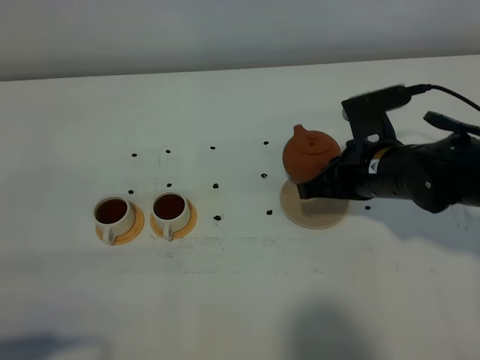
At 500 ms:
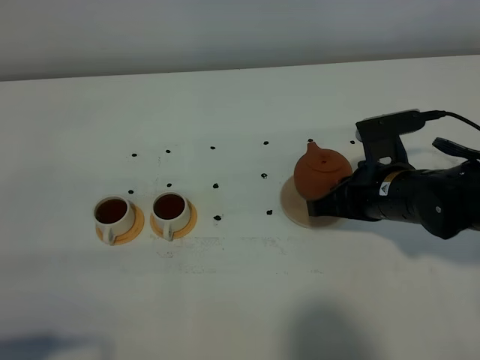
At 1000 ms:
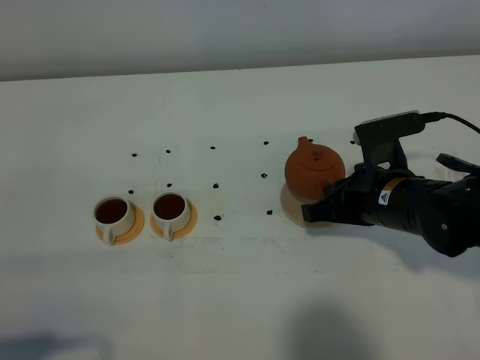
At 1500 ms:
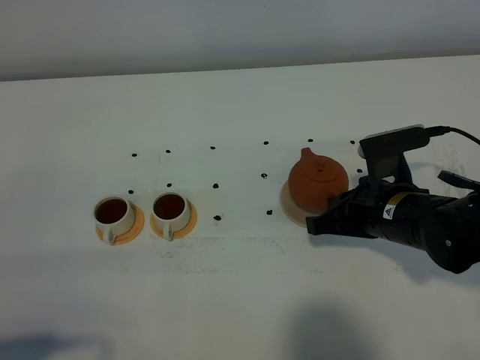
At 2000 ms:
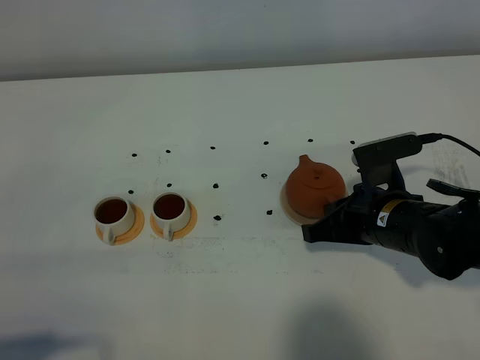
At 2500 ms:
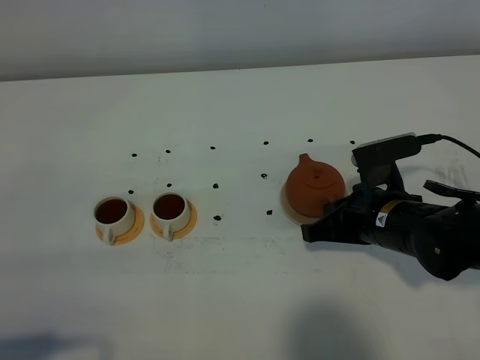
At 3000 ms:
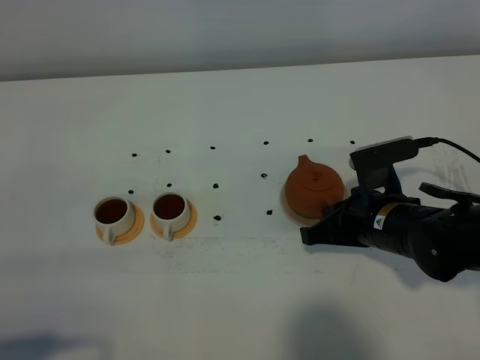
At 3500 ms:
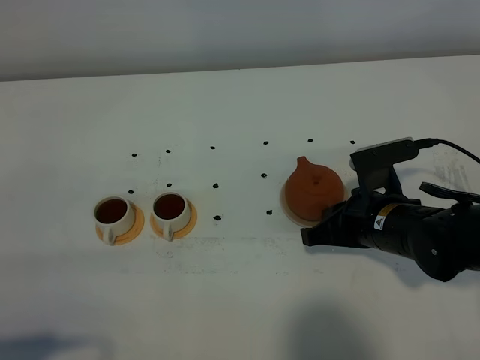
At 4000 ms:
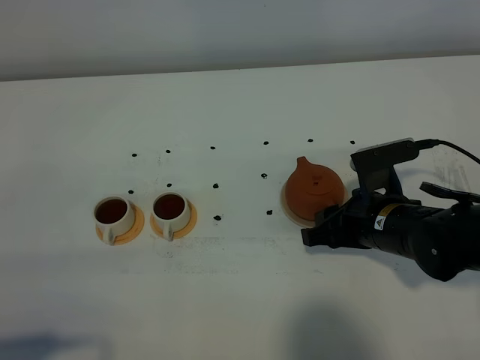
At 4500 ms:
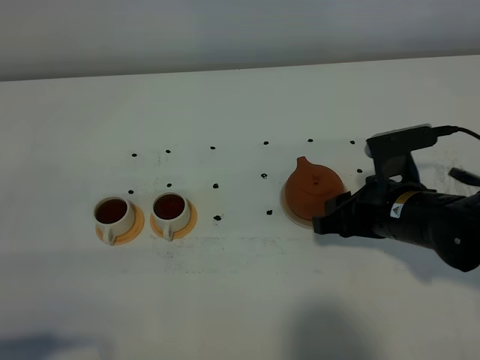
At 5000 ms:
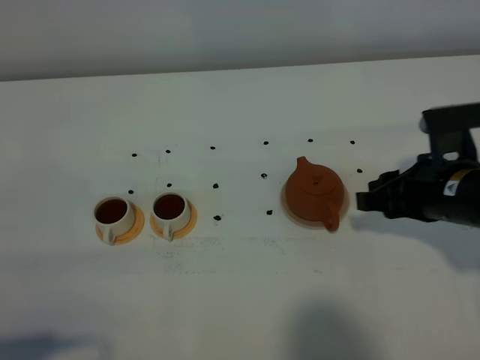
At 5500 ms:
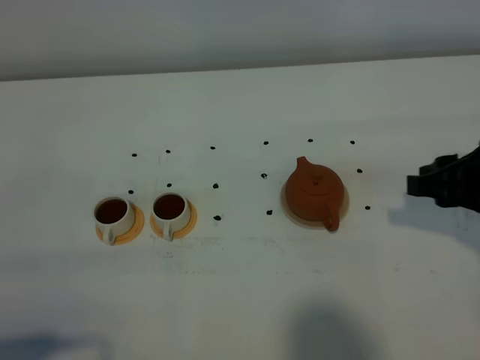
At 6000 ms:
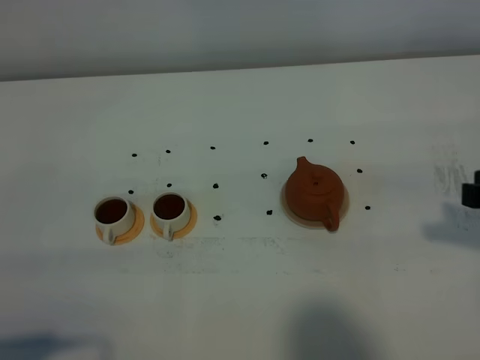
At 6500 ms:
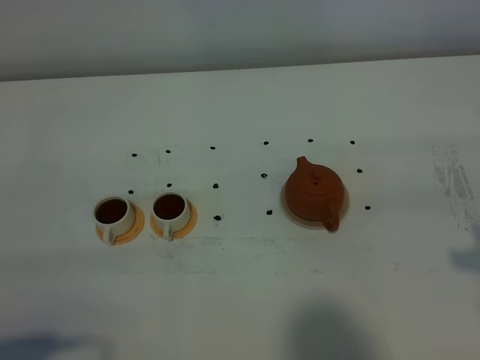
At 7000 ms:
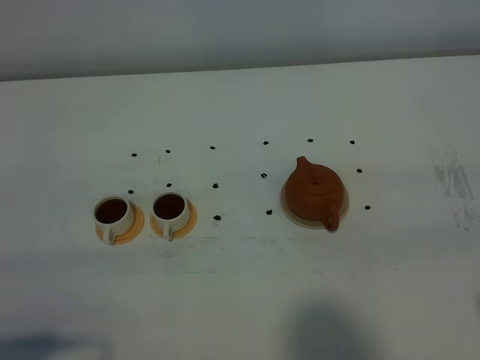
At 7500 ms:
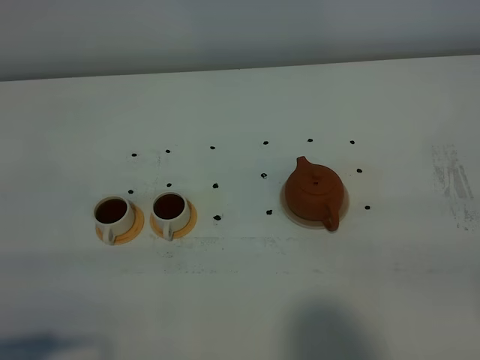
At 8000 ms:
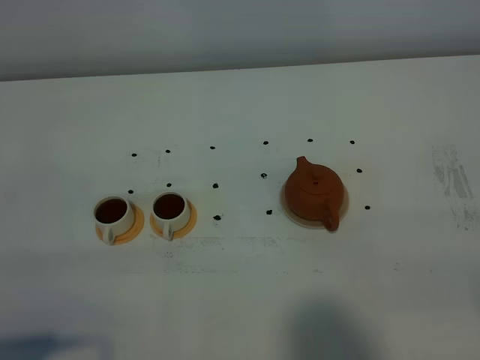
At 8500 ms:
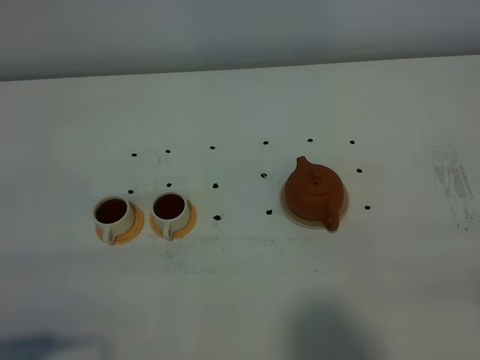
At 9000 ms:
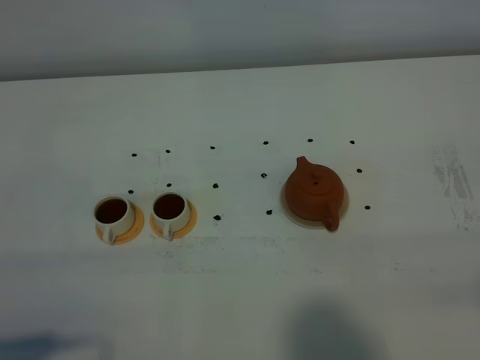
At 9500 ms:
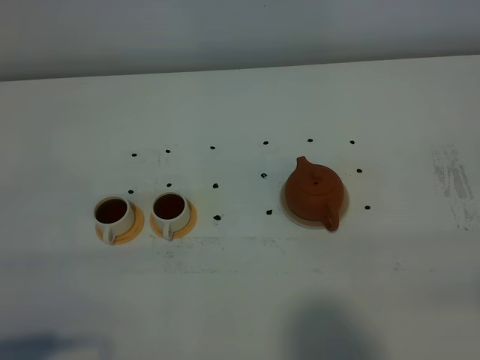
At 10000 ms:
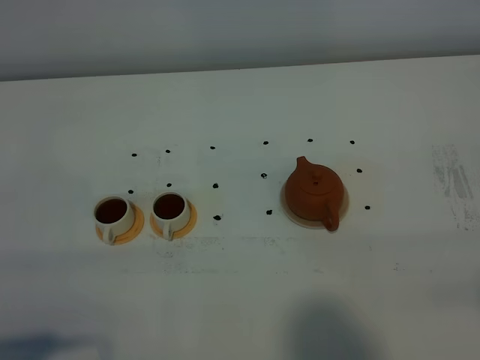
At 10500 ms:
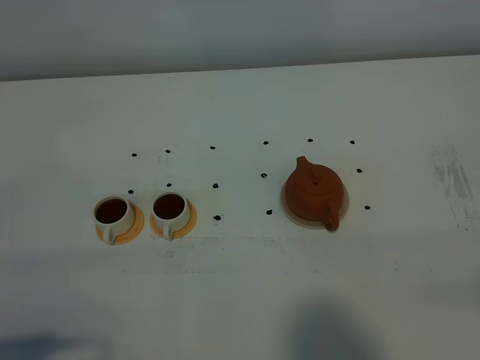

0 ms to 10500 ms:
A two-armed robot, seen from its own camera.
Task of the whole recording: grasp the brown teapot and pour the tea into the two white teacups one by one, put the brown teapot back in its original place.
0 ms to 2000 ms: The right gripper shifts by some 5 cm.
2000 ms to 4000 ms: The right gripper opens.
4000 ms to 6500 ms: The right gripper moves upward, backward and to the right, roughly 25 cm.

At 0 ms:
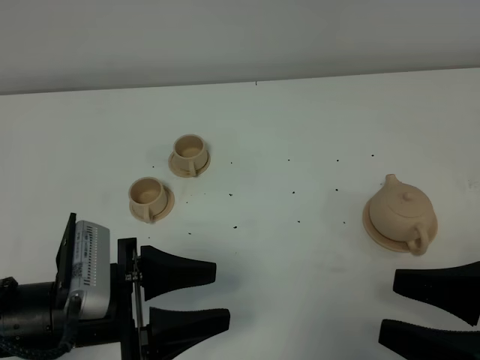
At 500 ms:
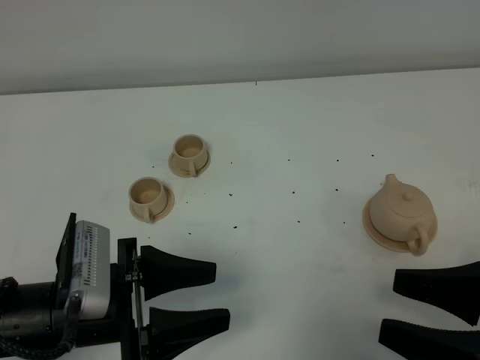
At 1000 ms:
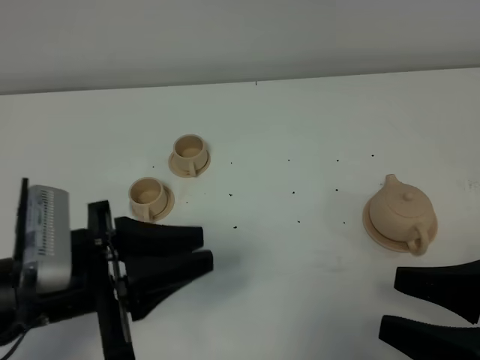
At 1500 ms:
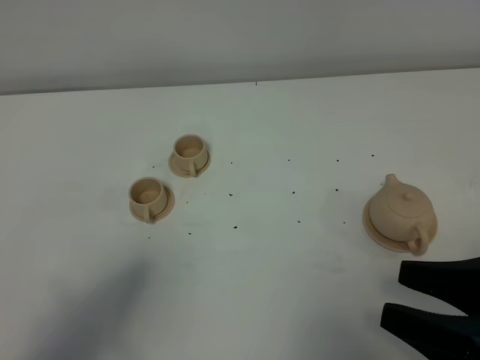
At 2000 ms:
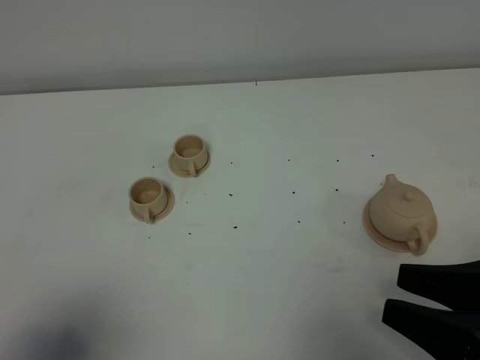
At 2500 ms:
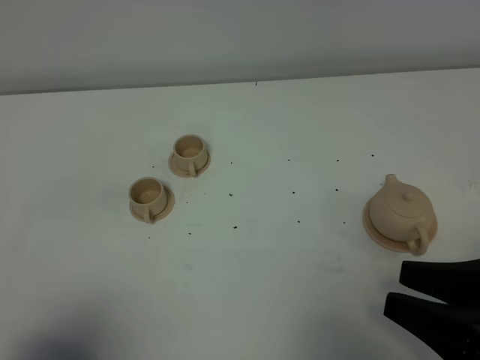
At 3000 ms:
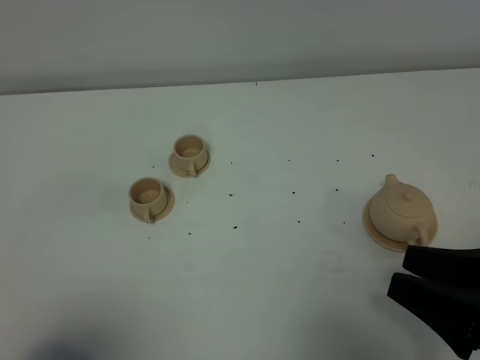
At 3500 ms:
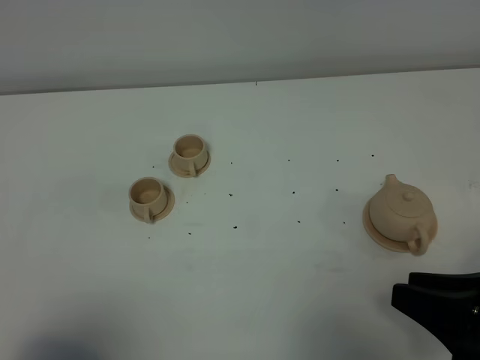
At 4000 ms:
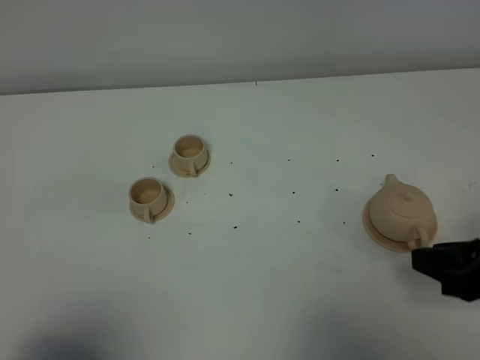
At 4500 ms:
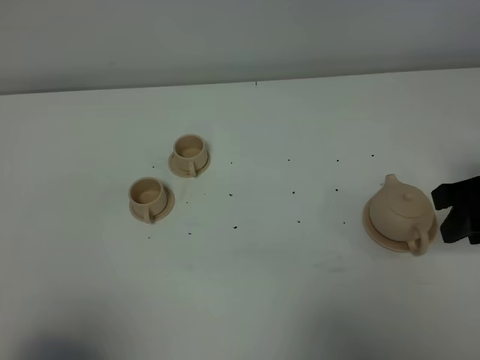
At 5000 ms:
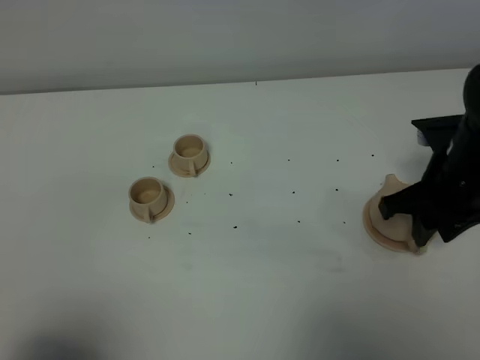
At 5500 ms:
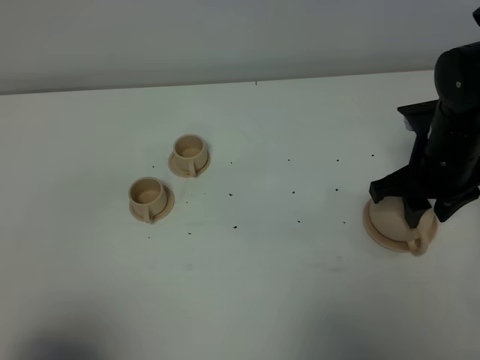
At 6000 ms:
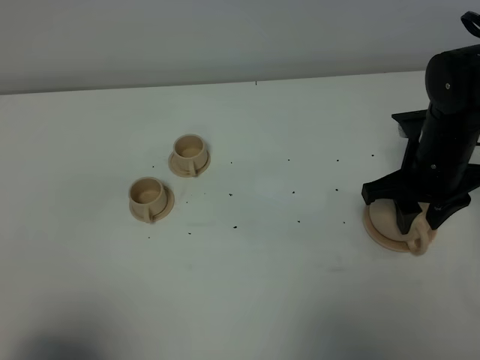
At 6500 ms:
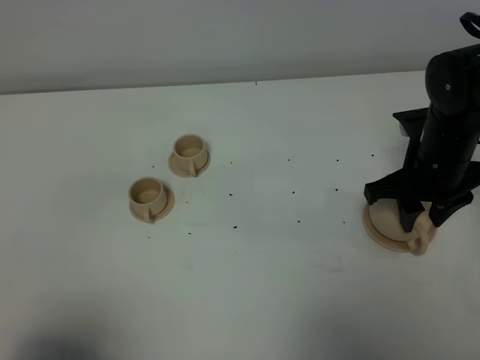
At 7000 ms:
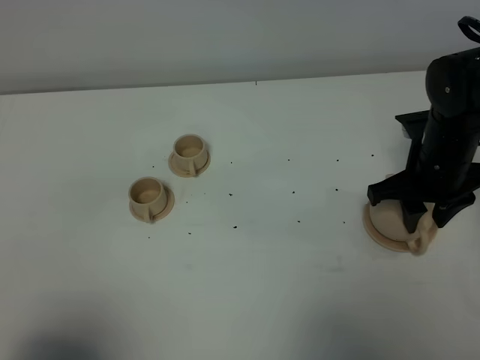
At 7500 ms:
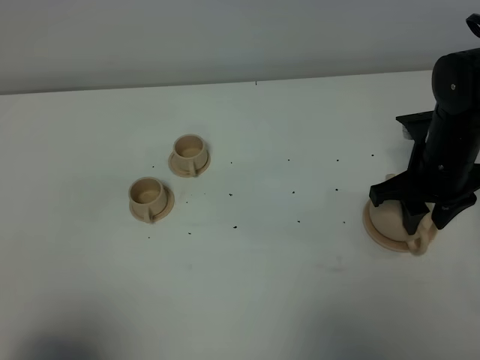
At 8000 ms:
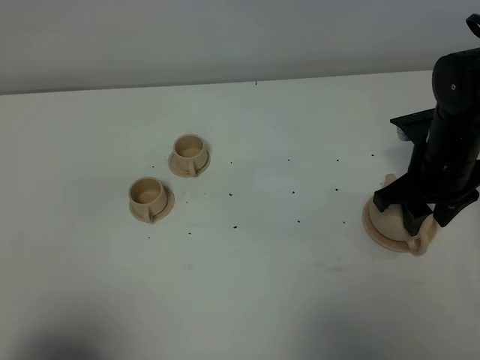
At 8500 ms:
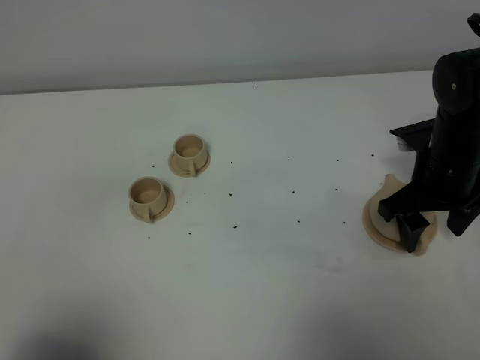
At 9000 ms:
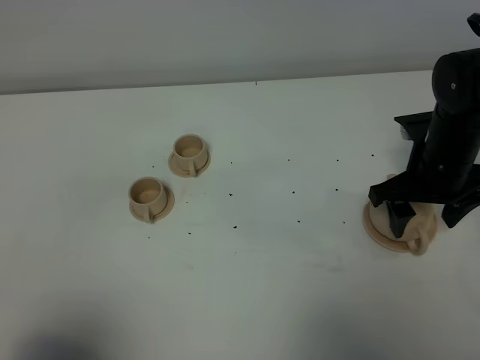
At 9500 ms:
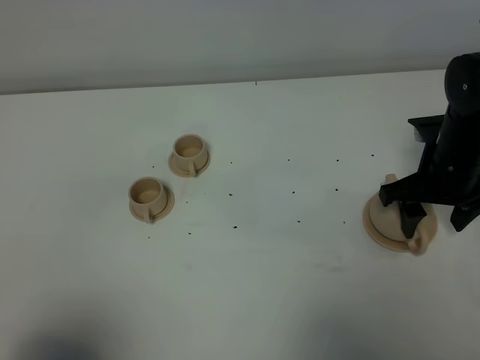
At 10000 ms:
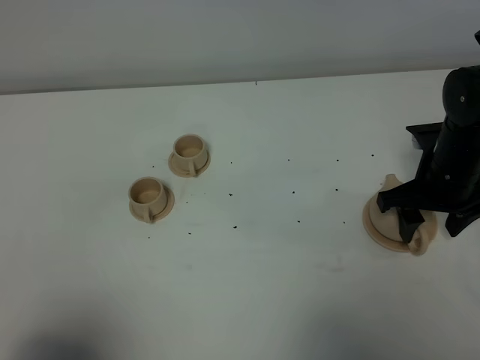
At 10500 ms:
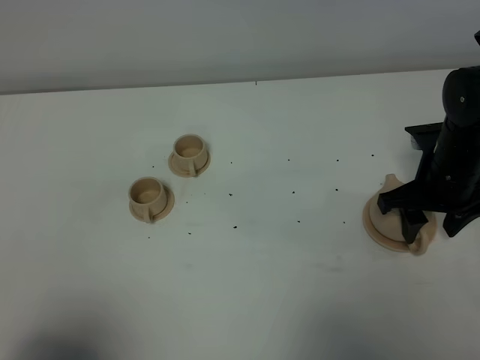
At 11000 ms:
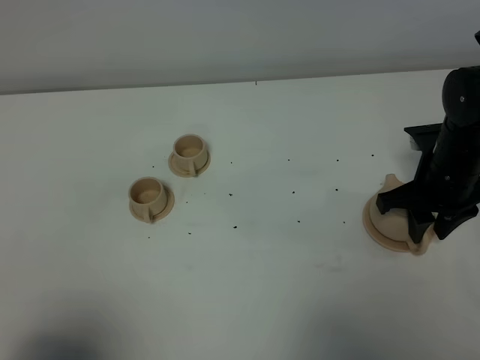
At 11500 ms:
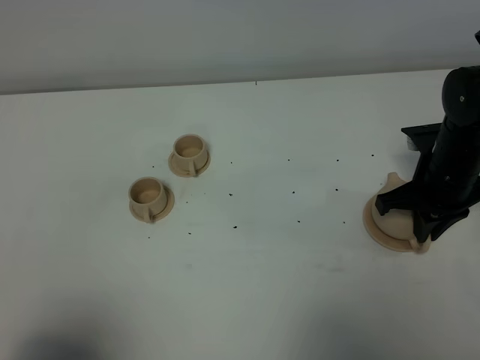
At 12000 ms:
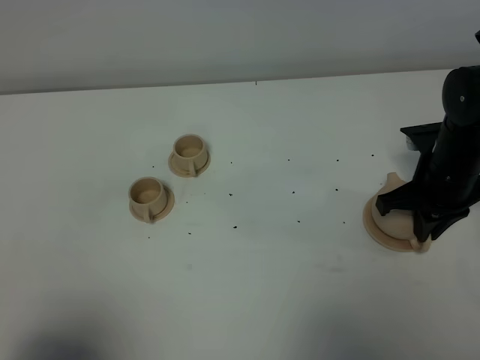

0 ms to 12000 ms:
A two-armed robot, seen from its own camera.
Task of the whole recording: grasp the brown teapot and pour the tea into the two brown teacups one by one, put the brown teapot back in its original place.
0 ms to 2000 ms: The left gripper travels backward, to the left and upward by some 20 cm, and closes.
2000 ms to 4000 ms: The right gripper goes about 5 cm forward.
4000 ms to 6000 ms: The right gripper moves forward, some 15 cm.
6000 ms to 10000 ms: The grippers make only small movements.
10000 ms to 12000 ms: The right gripper closes its fingers.

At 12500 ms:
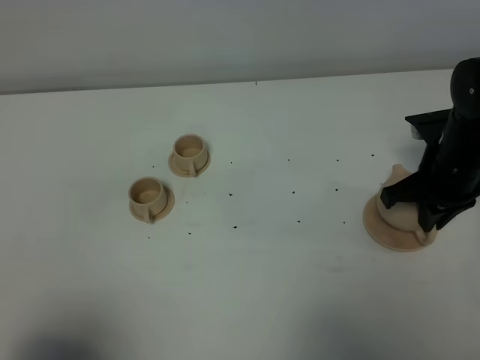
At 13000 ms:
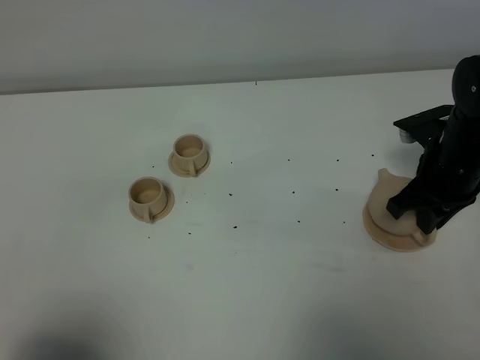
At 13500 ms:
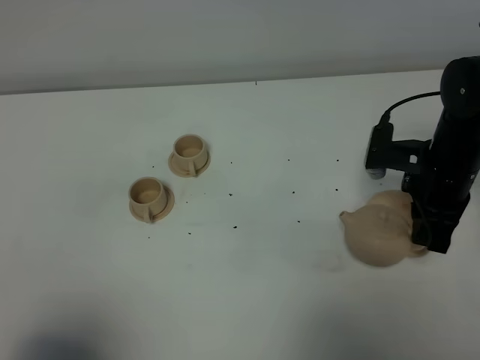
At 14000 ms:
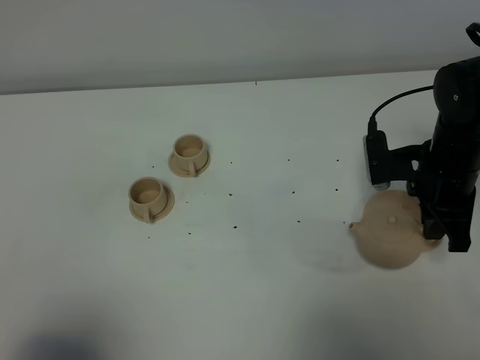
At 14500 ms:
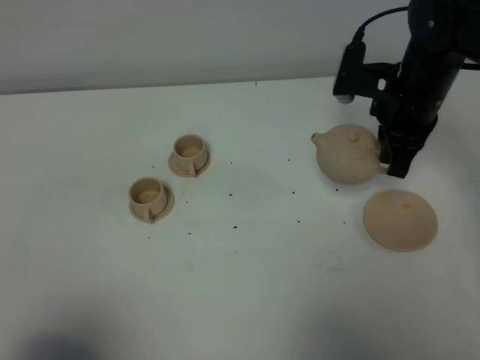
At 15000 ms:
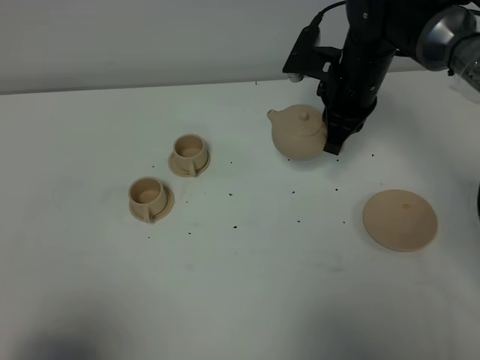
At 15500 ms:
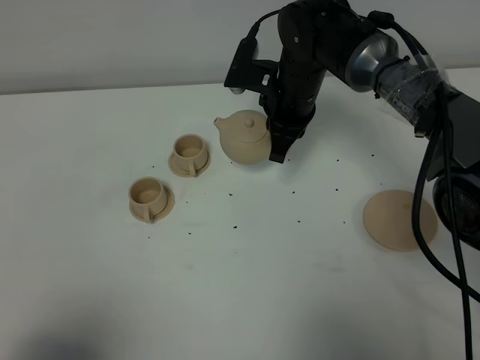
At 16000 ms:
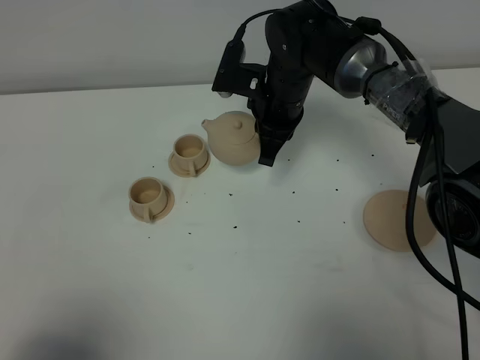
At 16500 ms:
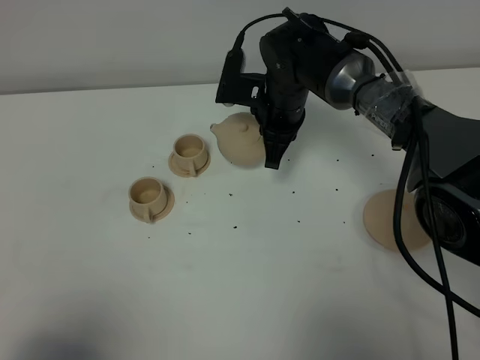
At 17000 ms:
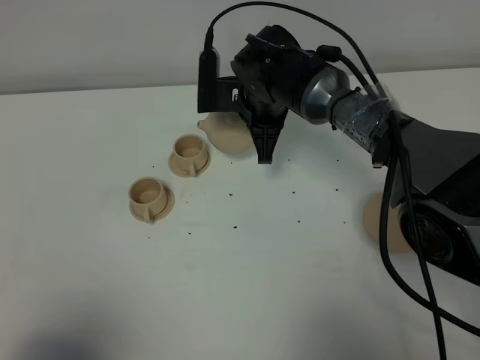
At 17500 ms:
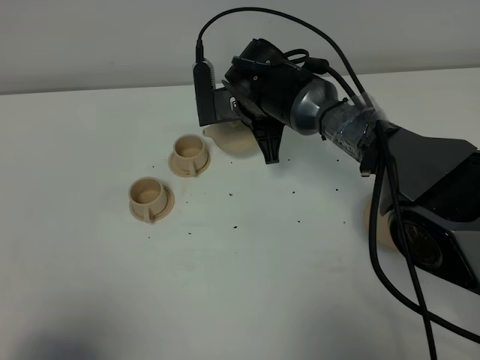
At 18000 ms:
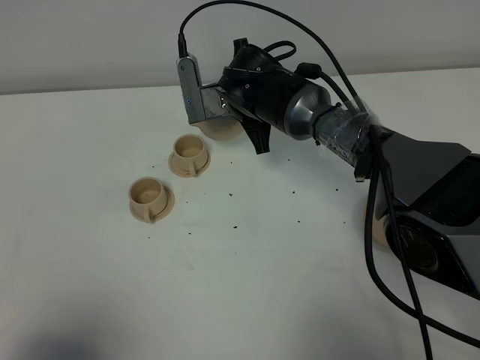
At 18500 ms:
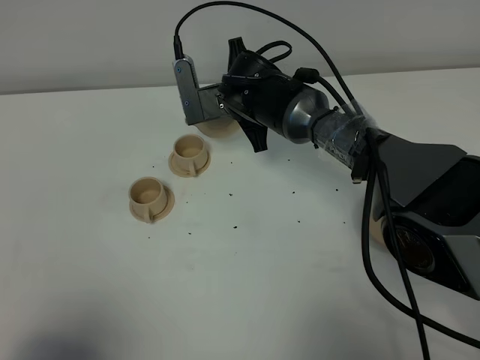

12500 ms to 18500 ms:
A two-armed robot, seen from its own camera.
Task of the whole recording: grasp the brown teapot and pour the tea into the two brown teacups one by one, put the brown teapot back in its original place.
12500 ms to 14500 ms: The right gripper goes some 10 cm upward and to the left.
14500 ms to 16500 ms: The right gripper goes roughly 15 cm to the left.
